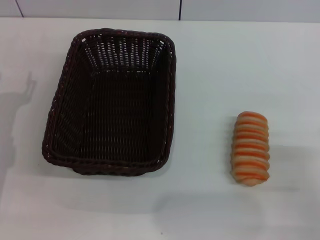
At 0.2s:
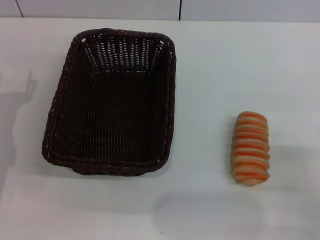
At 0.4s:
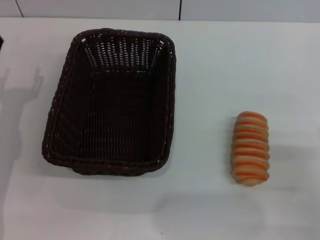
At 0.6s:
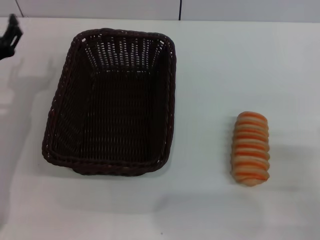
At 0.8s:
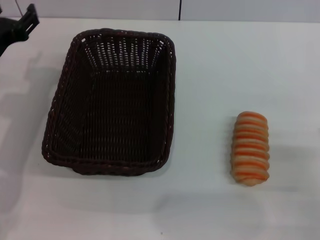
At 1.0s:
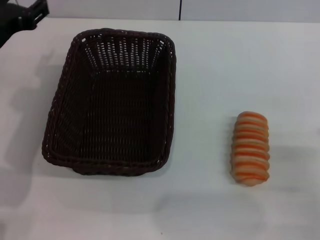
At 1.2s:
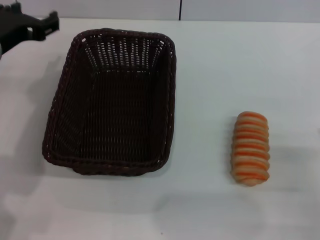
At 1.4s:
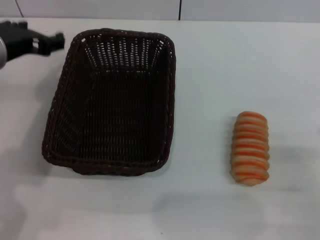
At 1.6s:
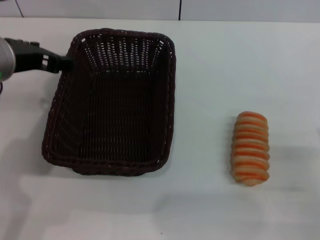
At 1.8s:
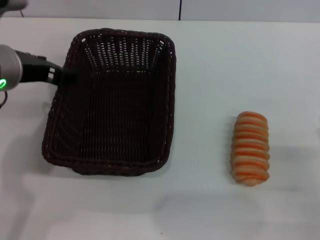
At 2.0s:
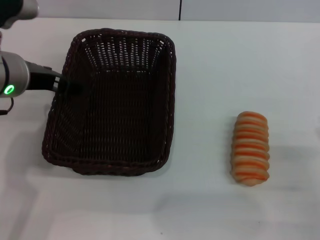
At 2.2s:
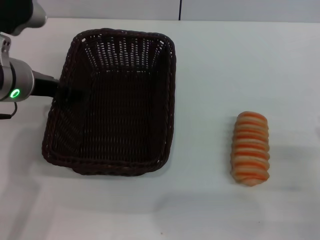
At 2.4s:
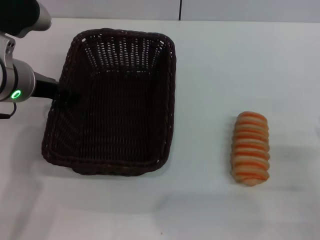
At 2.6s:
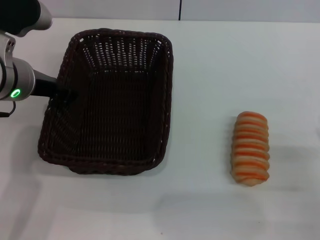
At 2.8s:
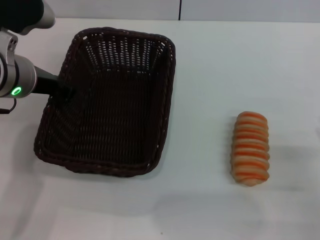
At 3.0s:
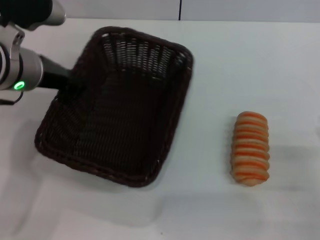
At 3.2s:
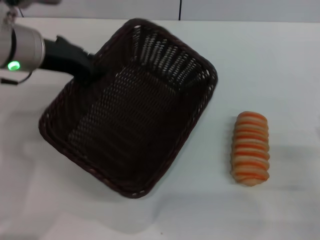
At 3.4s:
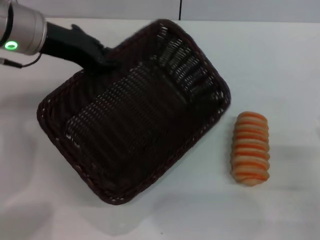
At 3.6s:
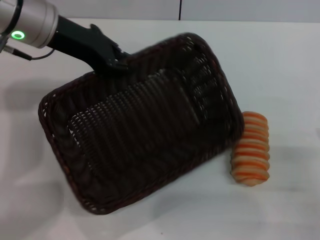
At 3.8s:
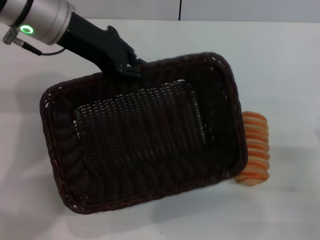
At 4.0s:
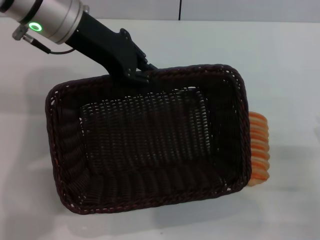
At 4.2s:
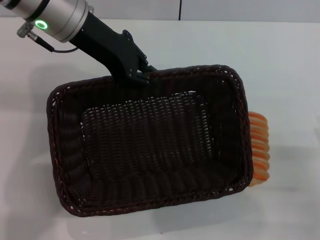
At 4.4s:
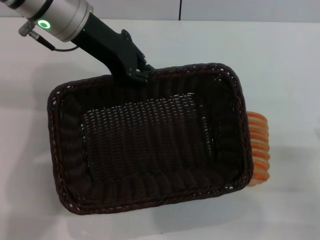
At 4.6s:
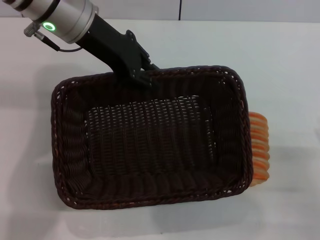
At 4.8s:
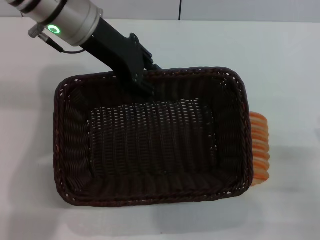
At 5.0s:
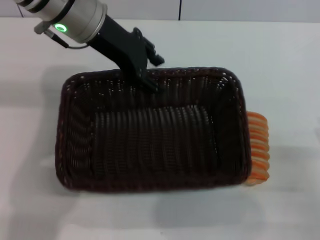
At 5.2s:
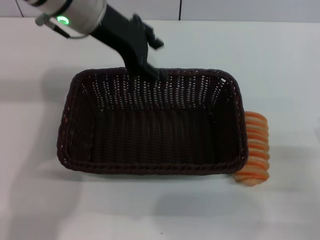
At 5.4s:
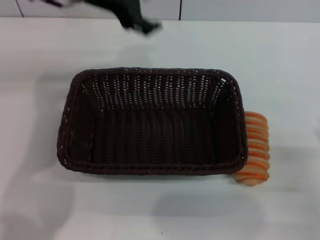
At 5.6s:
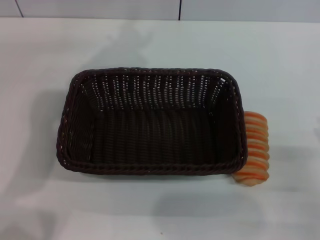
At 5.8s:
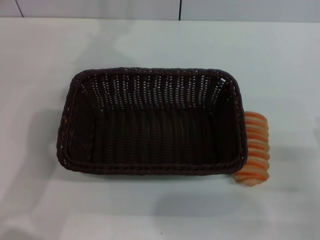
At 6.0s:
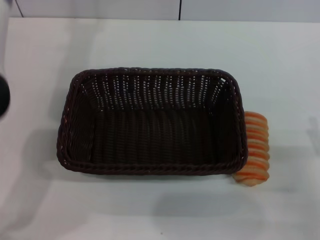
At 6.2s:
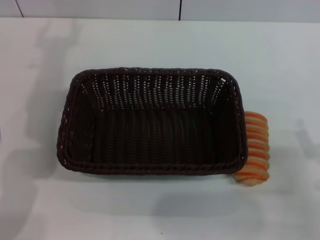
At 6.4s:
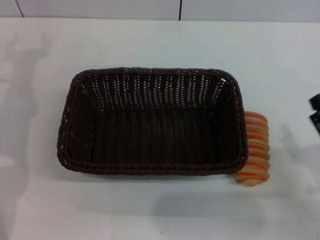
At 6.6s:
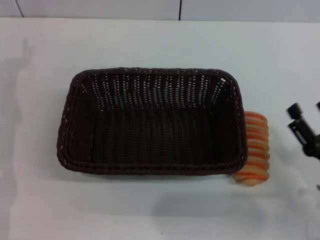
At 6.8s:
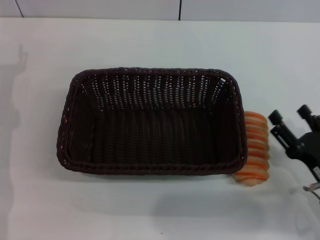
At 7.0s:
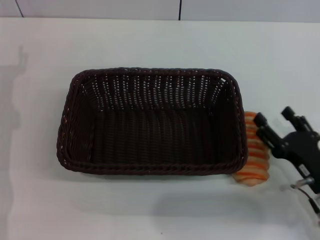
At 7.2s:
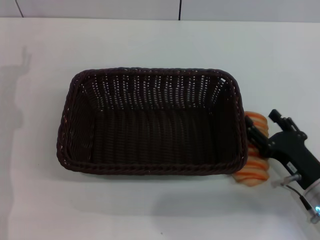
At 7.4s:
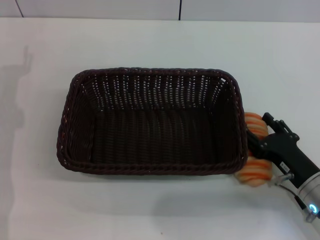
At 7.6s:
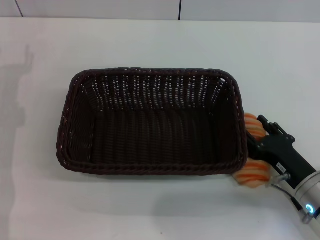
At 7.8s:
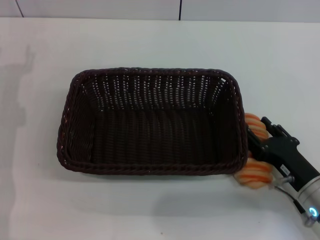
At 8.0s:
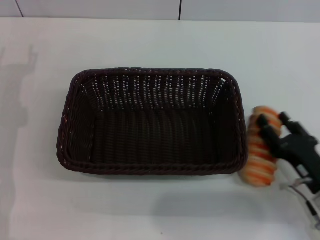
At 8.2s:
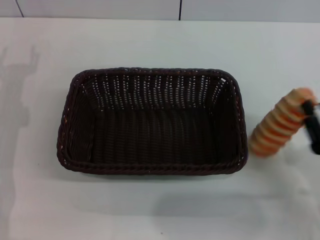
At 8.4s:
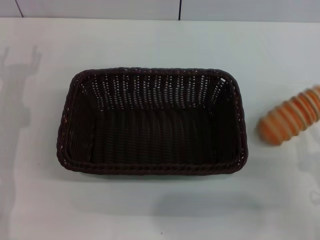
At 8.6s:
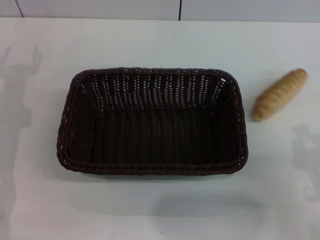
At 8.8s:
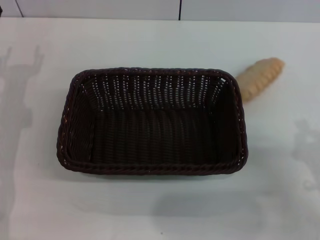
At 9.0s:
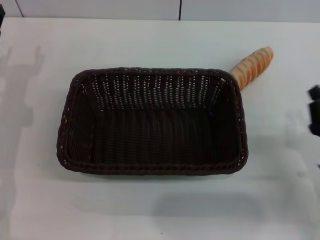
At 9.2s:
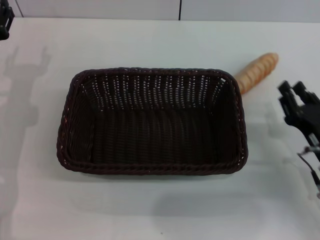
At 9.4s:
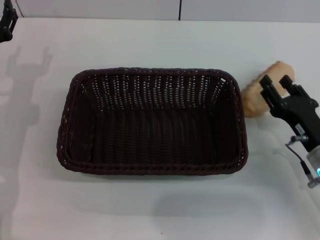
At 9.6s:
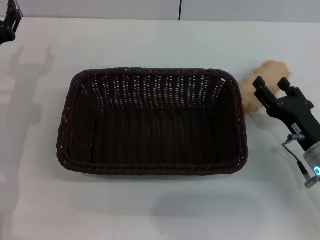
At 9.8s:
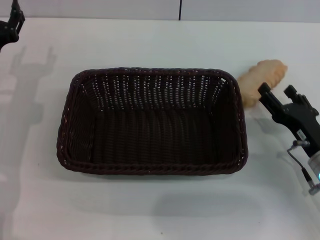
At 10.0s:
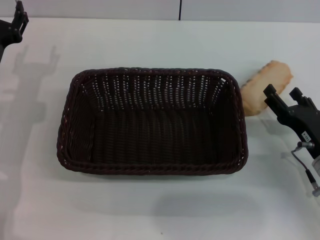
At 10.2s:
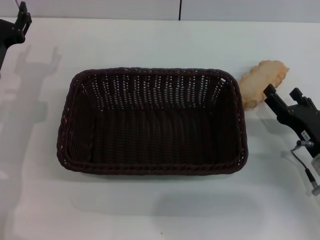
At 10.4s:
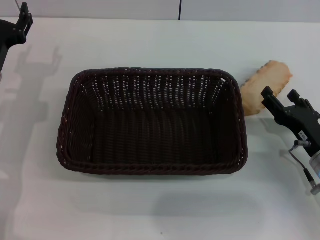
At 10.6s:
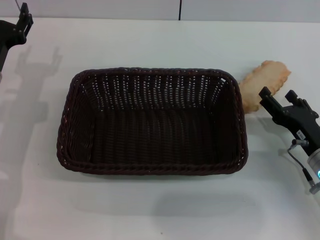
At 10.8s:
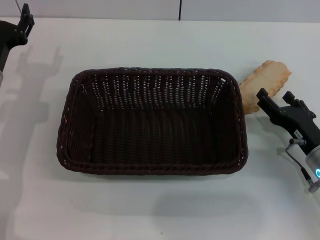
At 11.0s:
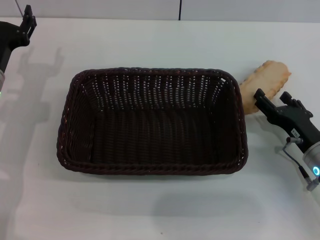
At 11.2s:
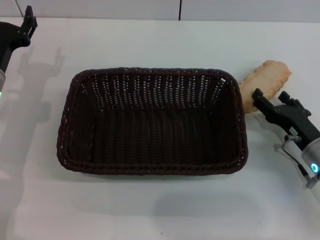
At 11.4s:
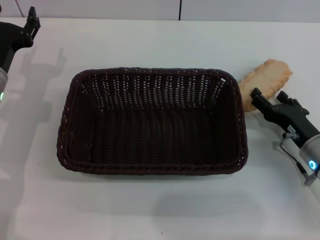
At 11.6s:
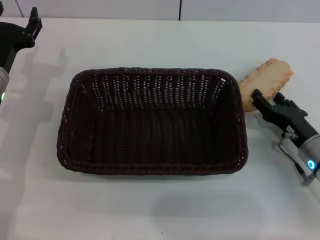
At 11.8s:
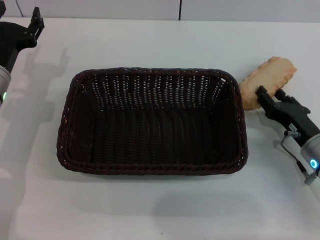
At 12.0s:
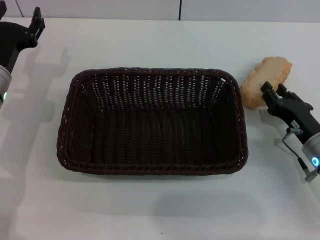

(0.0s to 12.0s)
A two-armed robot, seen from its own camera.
Step, 0.0s - 3.0s: Pick up the dark basket with the left gripper.
Step, 3.2s - 5.2s: Place the dark basket in the center of view with the left gripper.
0.0s - 1.6s: The left gripper moves upward and to the right, some 15 cm.
1.6s - 3.0s: The left gripper closes its fingers.
3.0s - 4.4s: The left gripper is displaced forward and upward by approximately 10 cm.
4.4s - 6.0s: The left gripper opens.
6.0s - 7.6s: The left gripper heads downward, to the left and backward, covering some 20 cm. The right gripper shifts roughly 5 cm to the left.
7.6s - 9.0s: The right gripper closes up.
9.0s - 10.4s: The right gripper travels forward by about 5 cm, and opens its fingers.
10.4s - 12.0s: The right gripper closes up.

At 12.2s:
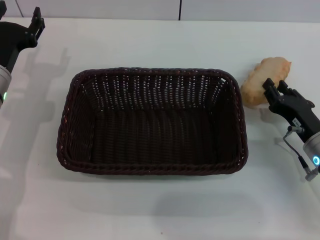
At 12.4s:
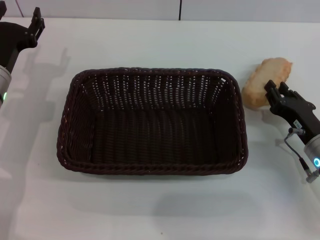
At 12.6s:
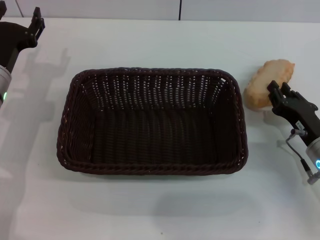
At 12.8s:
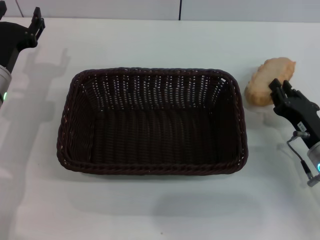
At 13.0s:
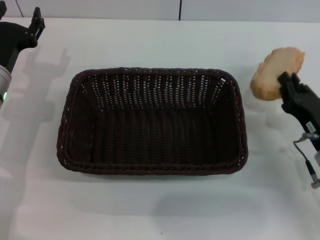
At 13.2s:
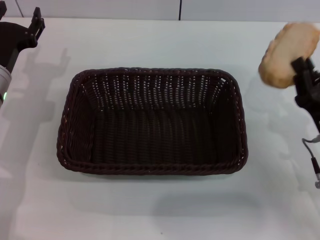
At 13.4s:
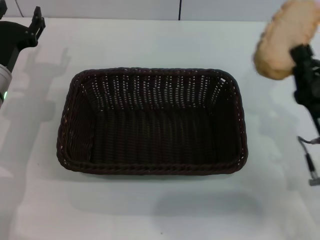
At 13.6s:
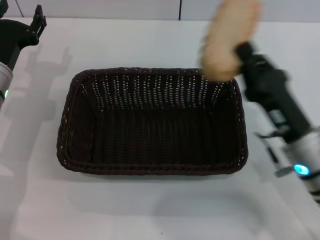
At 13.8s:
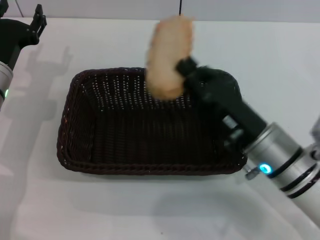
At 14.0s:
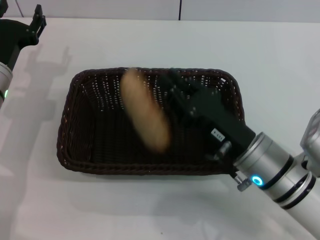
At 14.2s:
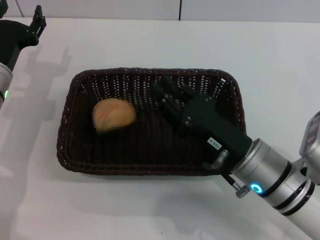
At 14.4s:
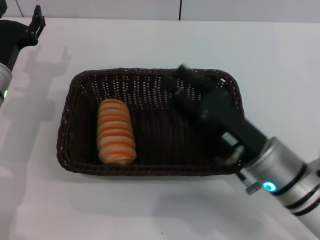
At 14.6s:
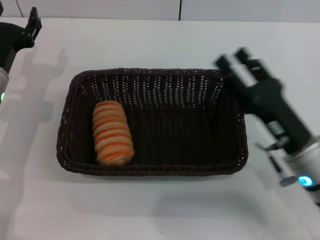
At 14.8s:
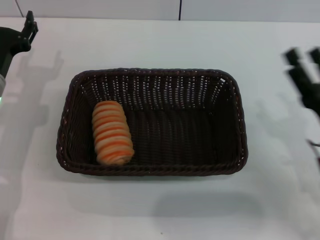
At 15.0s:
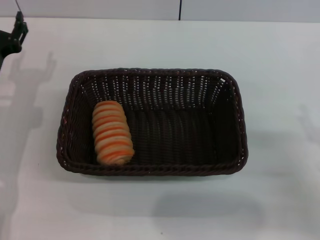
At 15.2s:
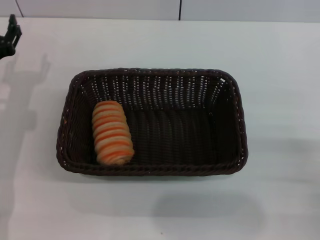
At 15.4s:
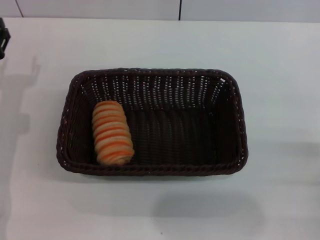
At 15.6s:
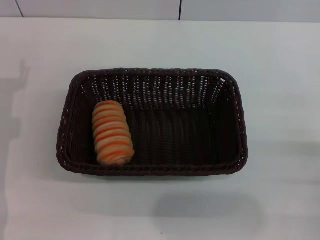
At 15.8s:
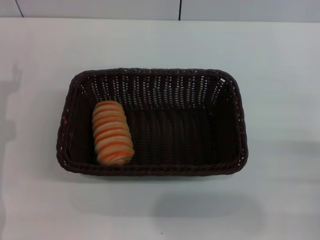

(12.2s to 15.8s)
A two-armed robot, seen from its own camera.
Step, 13.0s - 14.6s: Place the long bread into the dark basket with the right gripper.
12.2s - 14.0s: The right gripper heads to the left and upward, covering some 15 cm.
14.0s - 15.8s: The right gripper goes about 20 cm to the right, and opens, while the left gripper goes approximately 5 cm to the left.
